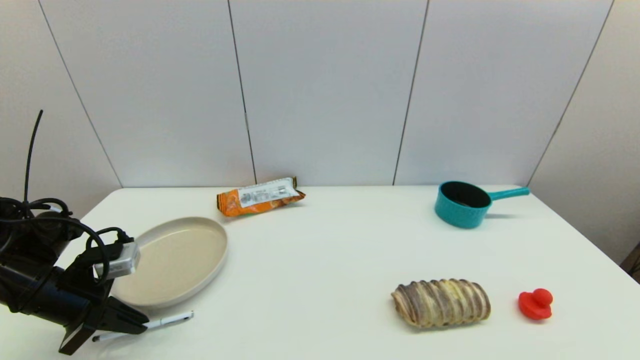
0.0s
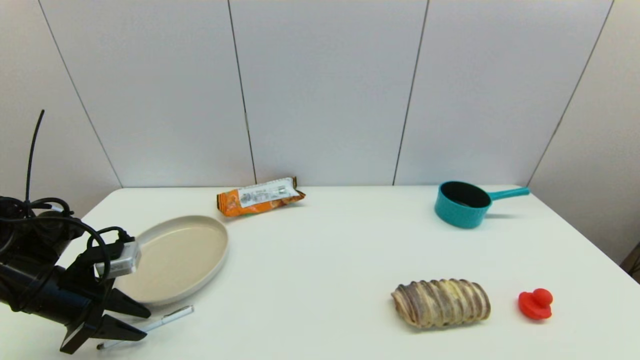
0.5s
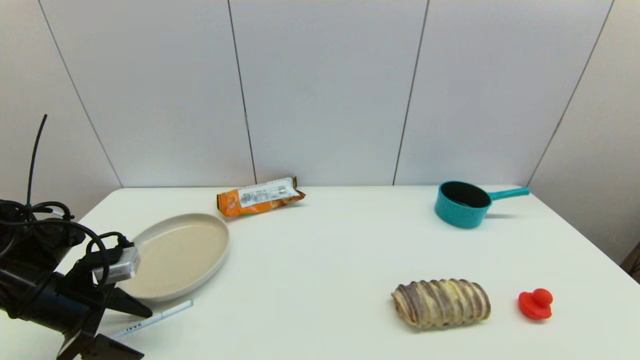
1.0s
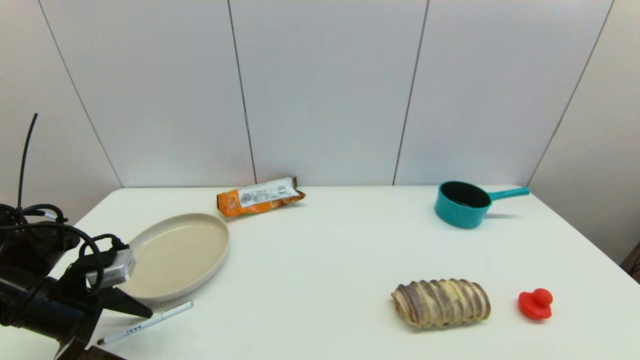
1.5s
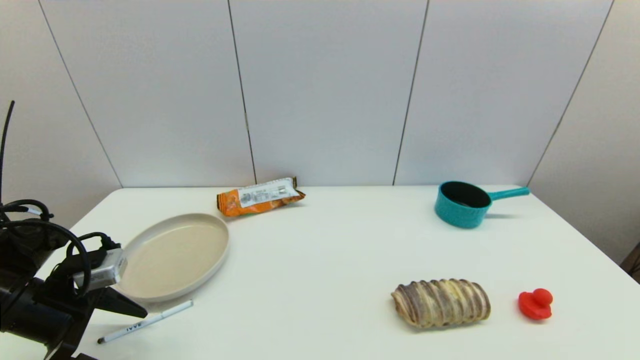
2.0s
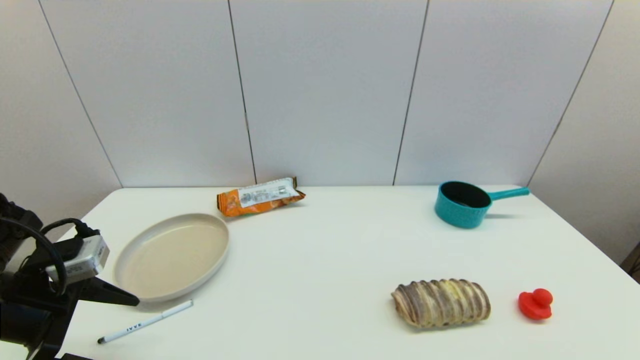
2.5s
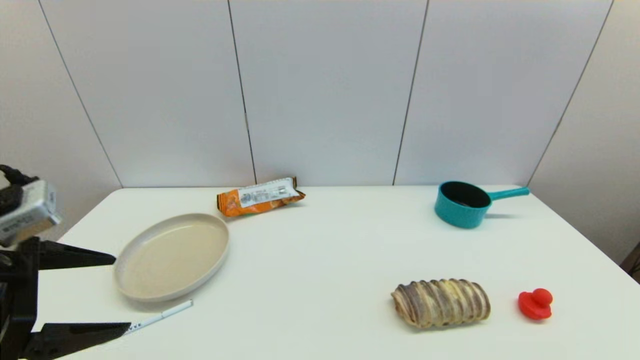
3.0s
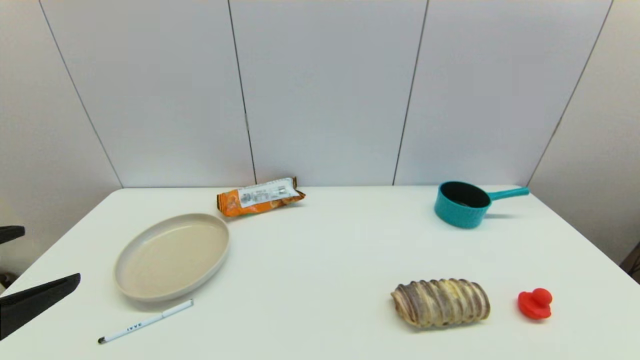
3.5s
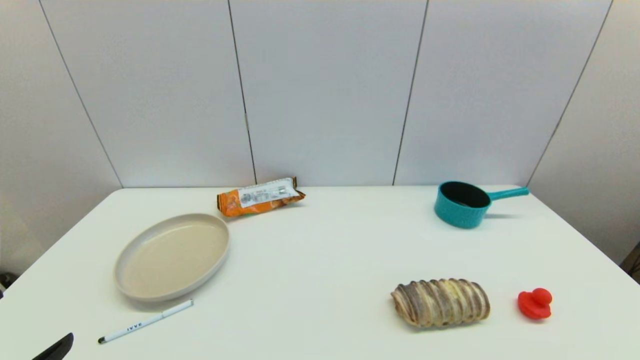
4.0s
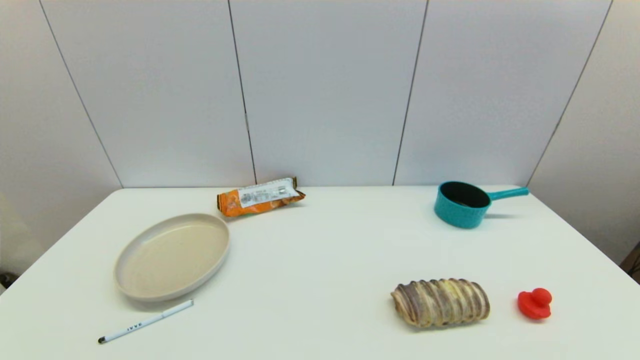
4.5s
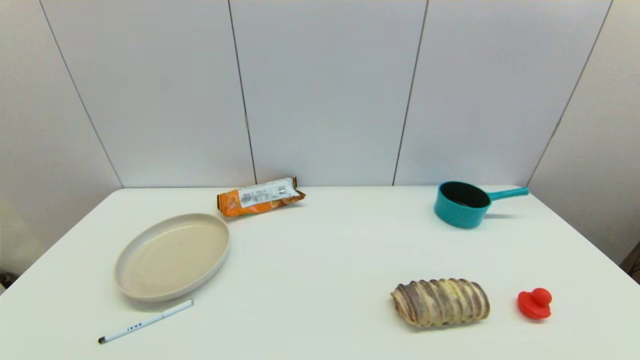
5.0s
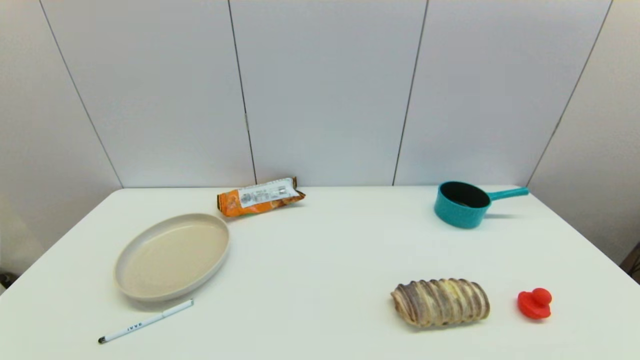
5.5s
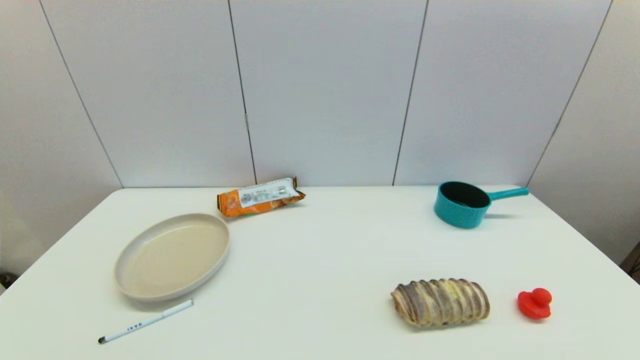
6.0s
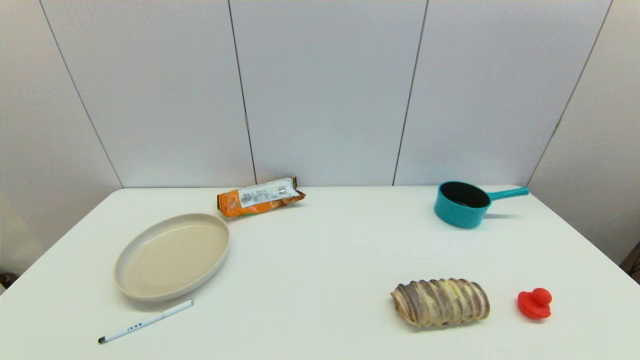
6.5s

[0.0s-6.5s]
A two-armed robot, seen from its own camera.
Task of the whole recording: put the pen in the designated position.
0.0s to 2.0s: The left gripper opens.
2.0s to 4.5s: The left gripper is displaced backward by some 20 cm.
